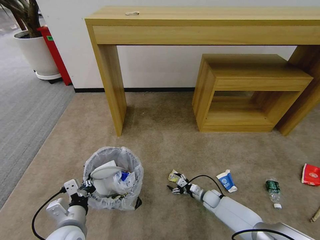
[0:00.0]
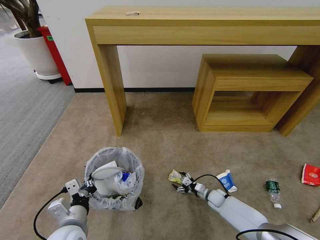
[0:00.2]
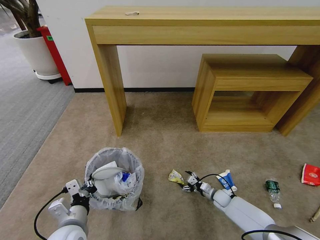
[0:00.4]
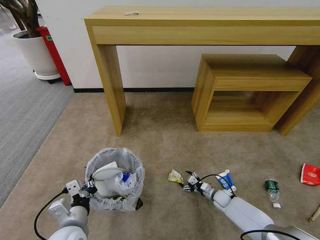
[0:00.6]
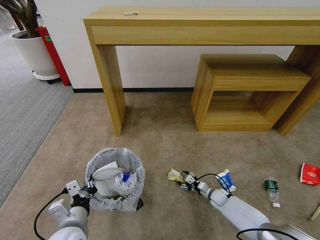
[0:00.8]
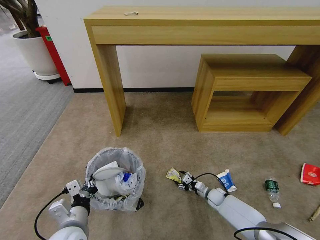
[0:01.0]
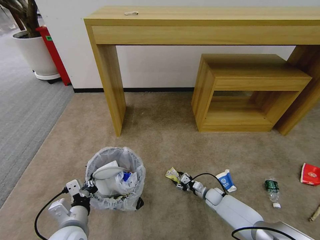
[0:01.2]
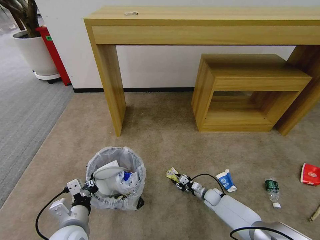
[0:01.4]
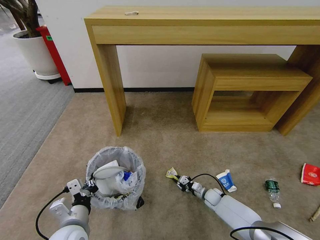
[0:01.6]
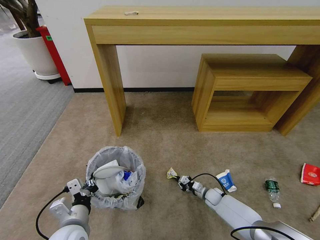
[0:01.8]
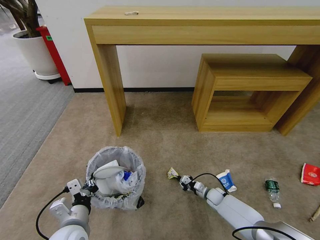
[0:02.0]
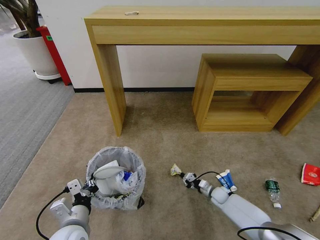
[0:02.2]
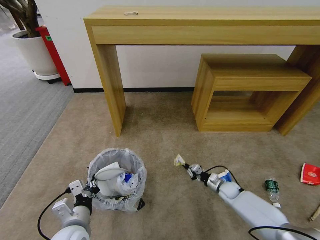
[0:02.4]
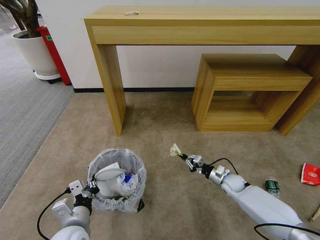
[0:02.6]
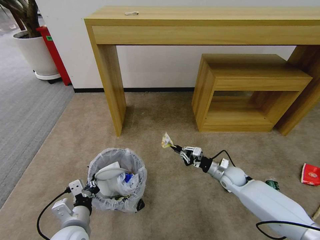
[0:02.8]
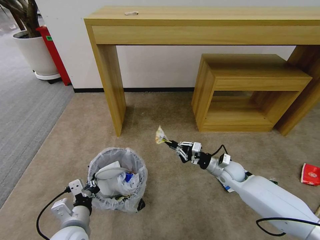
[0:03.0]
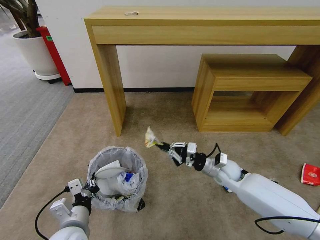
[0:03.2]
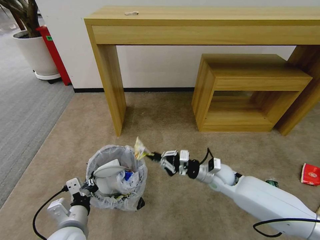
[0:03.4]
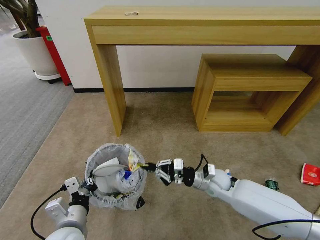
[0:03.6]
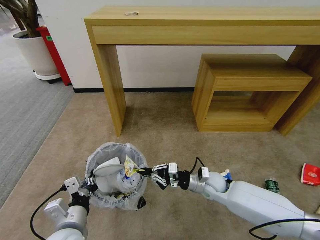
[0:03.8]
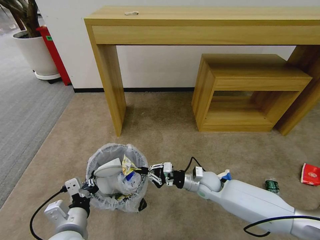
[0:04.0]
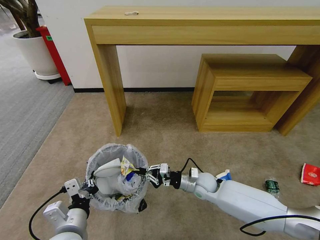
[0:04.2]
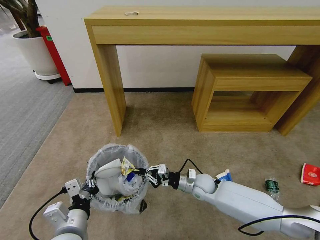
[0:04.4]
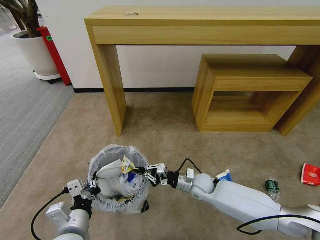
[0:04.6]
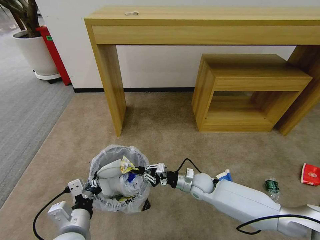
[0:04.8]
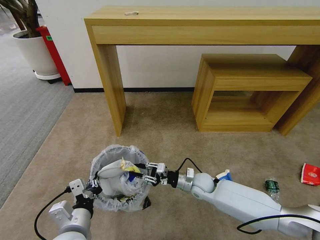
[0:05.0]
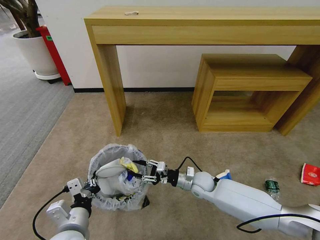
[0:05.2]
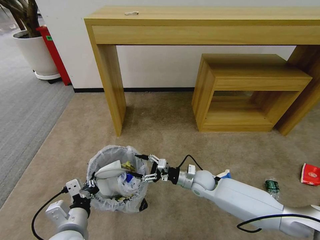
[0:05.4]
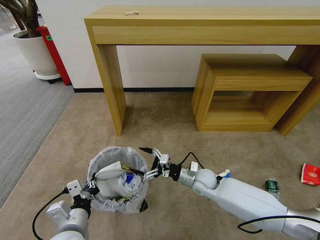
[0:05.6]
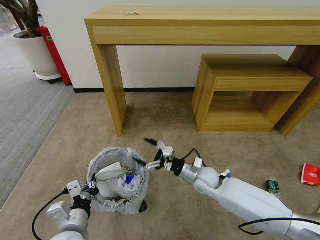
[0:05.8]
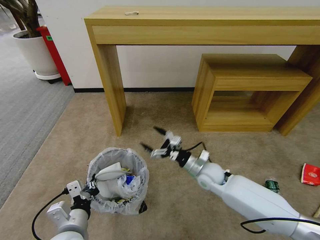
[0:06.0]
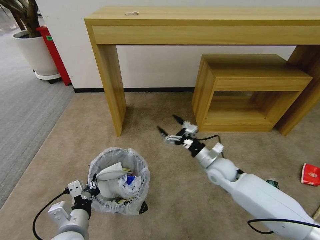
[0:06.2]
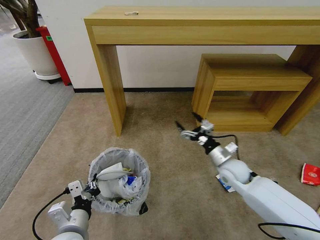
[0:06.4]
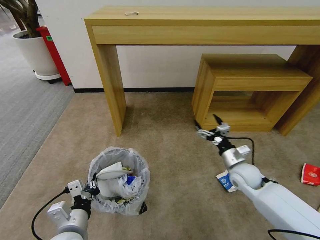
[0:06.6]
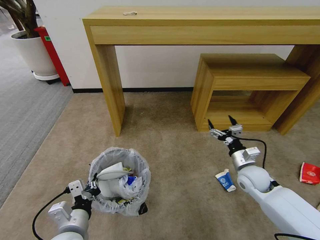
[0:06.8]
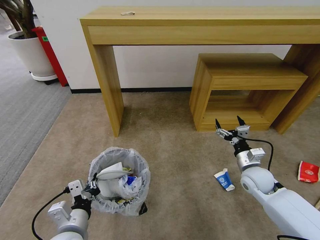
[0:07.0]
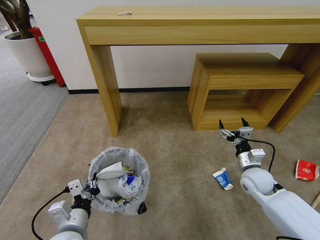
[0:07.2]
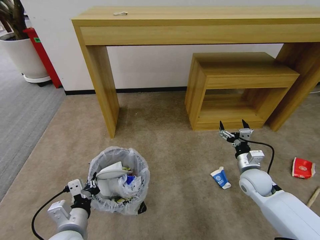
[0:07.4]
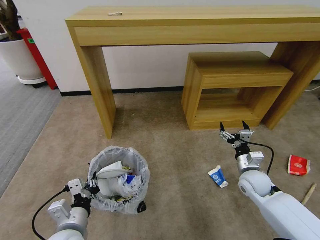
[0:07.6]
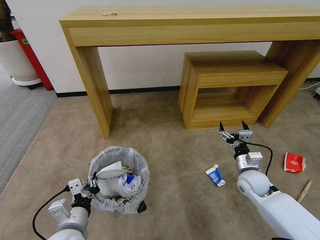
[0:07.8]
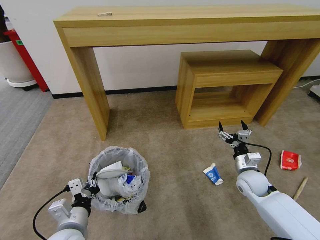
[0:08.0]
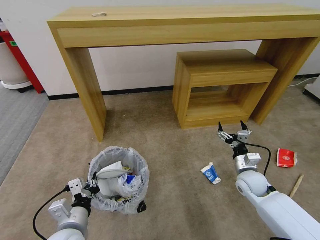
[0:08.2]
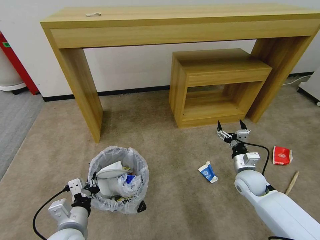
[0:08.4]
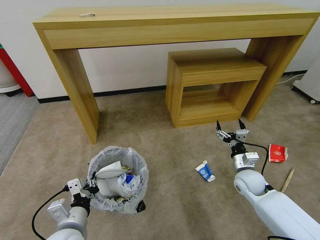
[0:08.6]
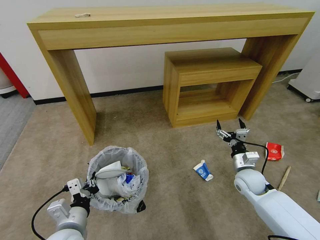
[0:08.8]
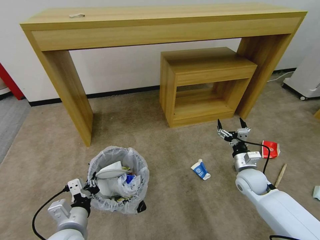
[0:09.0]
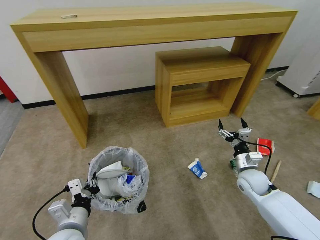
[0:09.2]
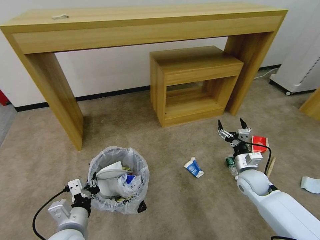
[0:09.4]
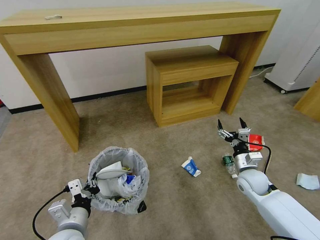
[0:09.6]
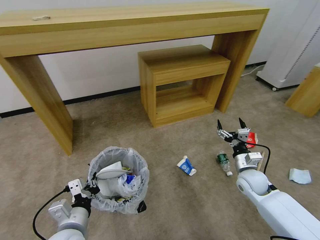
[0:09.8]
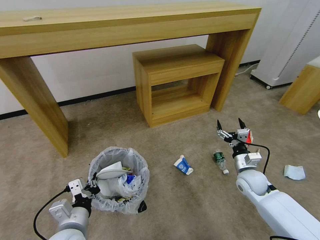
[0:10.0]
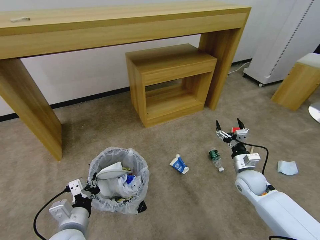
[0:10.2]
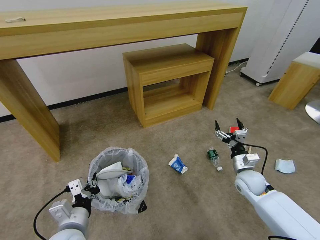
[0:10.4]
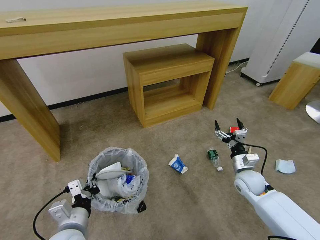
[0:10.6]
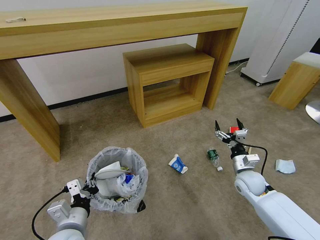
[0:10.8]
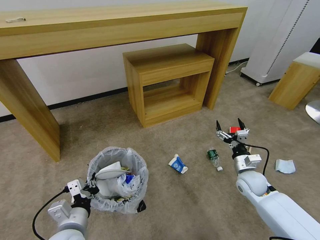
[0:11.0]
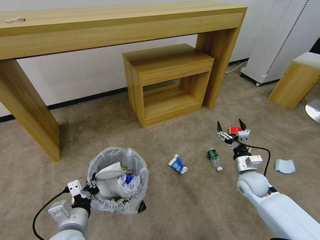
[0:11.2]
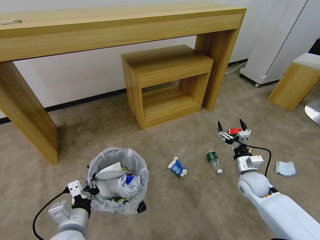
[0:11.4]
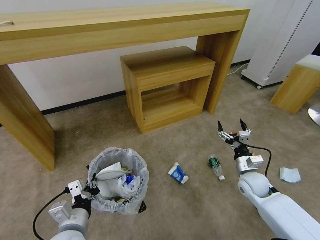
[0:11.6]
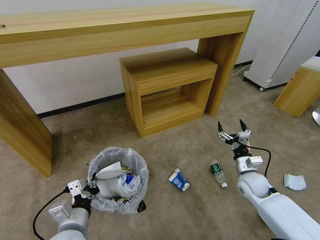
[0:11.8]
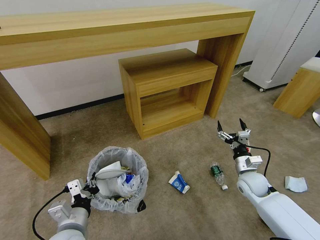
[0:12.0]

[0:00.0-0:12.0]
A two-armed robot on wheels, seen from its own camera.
Task of the whole recording: Pick up the trash bin and place the garbage on the floor into it.
0:00.0 to 0:01.6: The right gripper closes.
0:01.6 to 0:03.0: The right gripper goes roughly 20 cm upward.
0:03.0 to 0:04.4: The right gripper travels to the left by some 10 cm.
0:04.4 to 0:06.0: The right gripper is displaced upward by approximately 5 cm, and opens its fingers.
0:06.0 to 0:07.6: The right gripper shifts approximately 15 cm to the right.

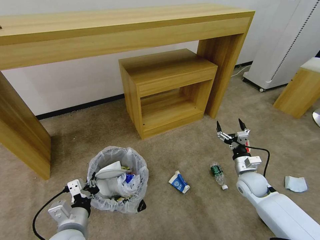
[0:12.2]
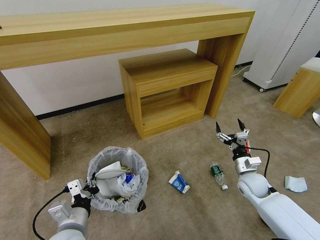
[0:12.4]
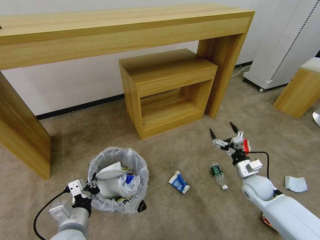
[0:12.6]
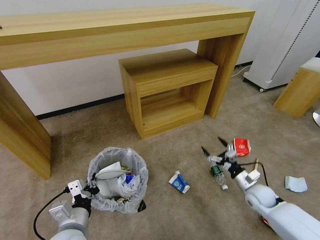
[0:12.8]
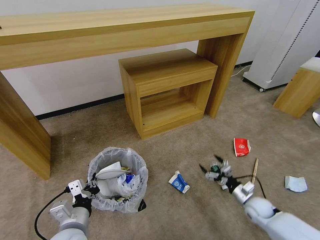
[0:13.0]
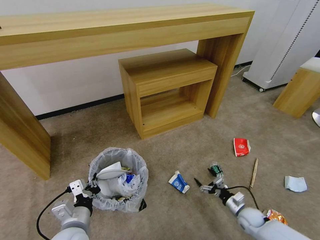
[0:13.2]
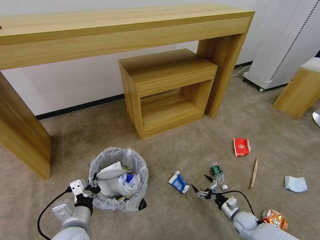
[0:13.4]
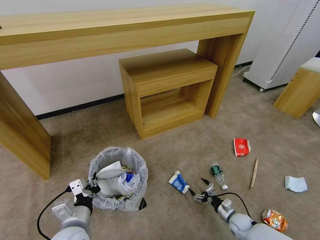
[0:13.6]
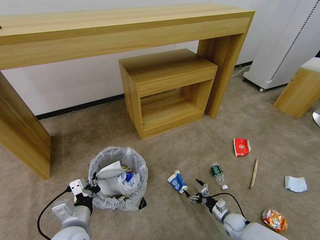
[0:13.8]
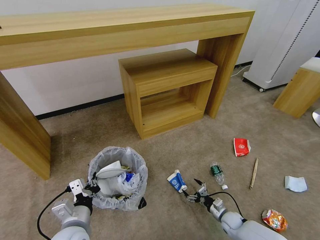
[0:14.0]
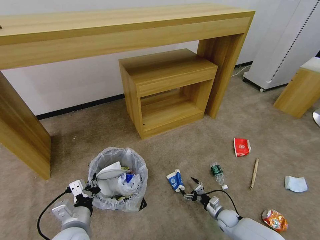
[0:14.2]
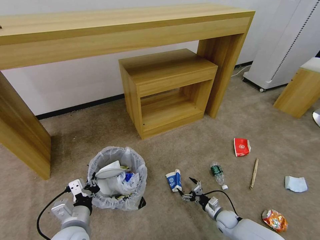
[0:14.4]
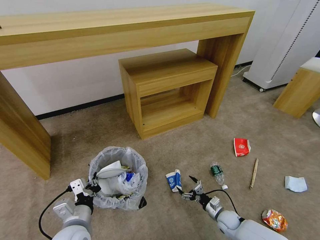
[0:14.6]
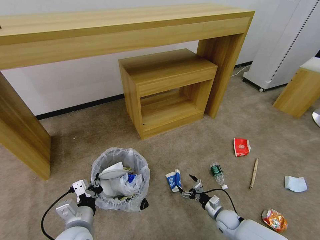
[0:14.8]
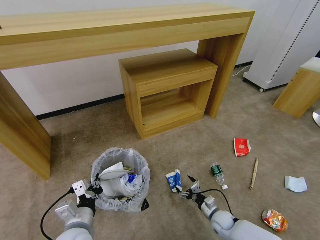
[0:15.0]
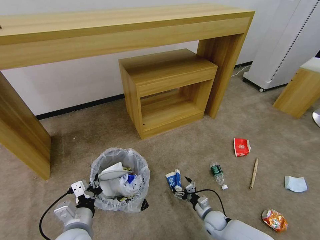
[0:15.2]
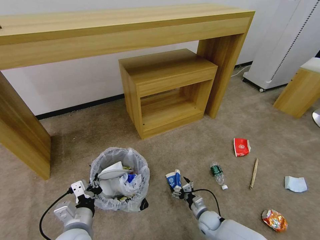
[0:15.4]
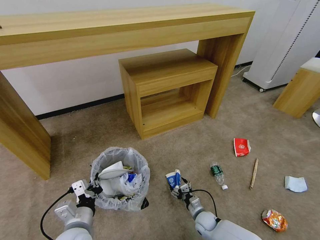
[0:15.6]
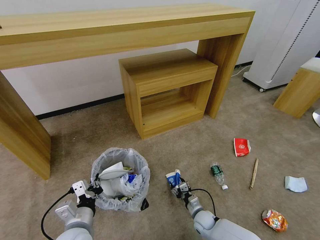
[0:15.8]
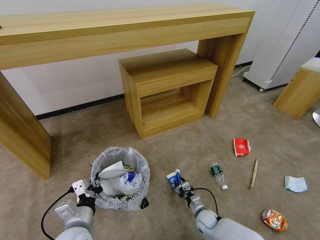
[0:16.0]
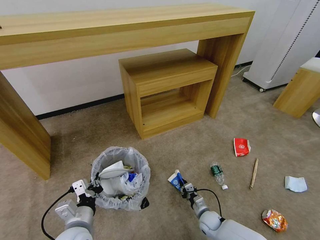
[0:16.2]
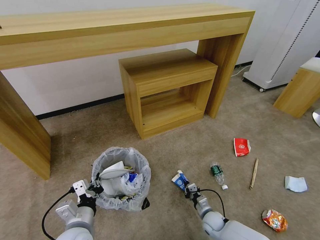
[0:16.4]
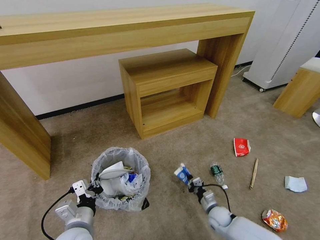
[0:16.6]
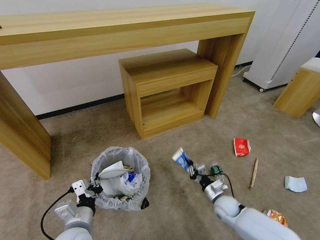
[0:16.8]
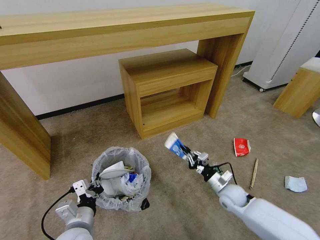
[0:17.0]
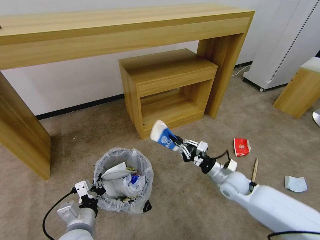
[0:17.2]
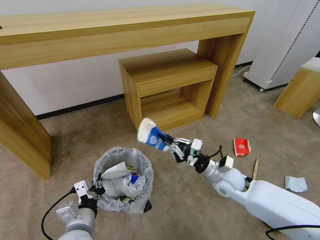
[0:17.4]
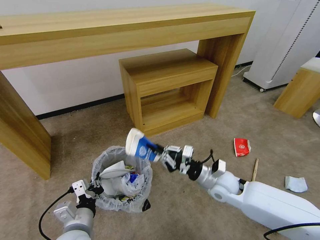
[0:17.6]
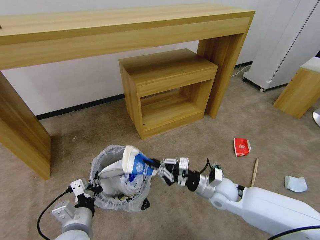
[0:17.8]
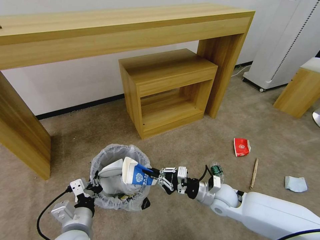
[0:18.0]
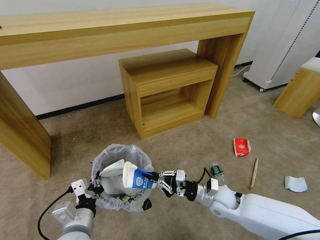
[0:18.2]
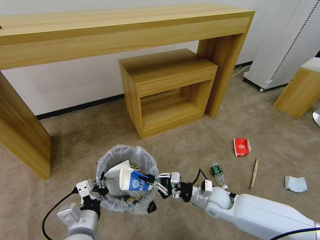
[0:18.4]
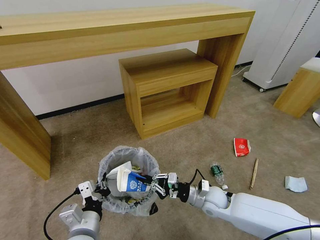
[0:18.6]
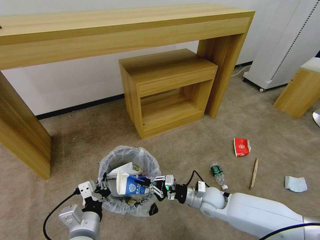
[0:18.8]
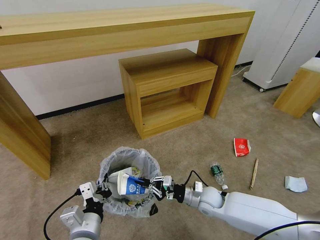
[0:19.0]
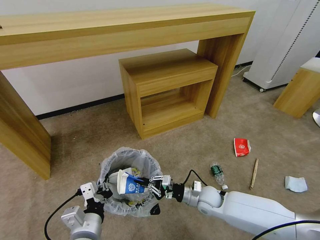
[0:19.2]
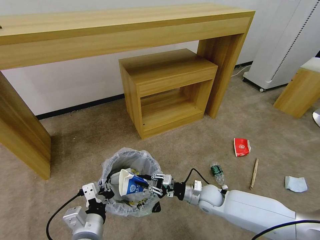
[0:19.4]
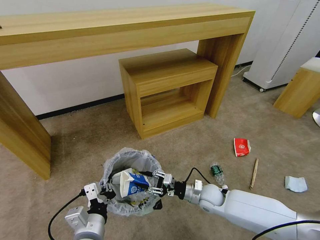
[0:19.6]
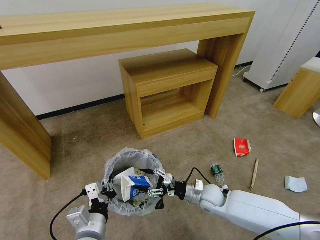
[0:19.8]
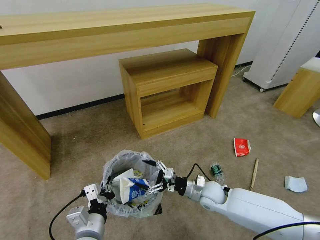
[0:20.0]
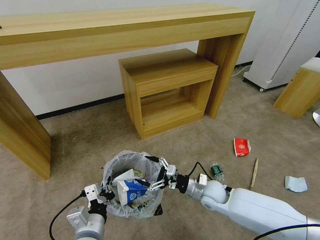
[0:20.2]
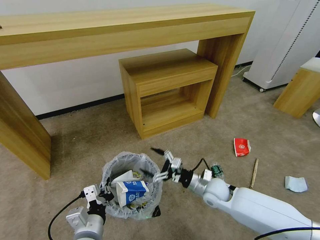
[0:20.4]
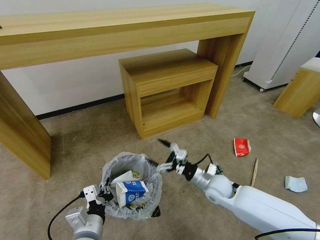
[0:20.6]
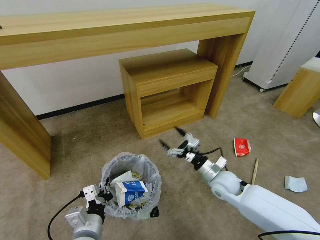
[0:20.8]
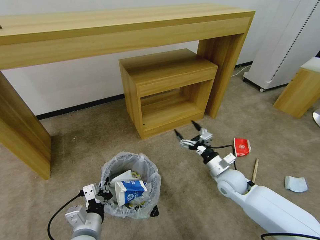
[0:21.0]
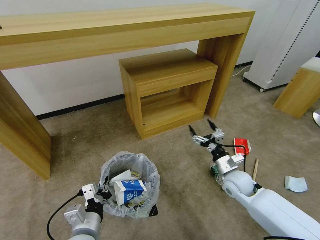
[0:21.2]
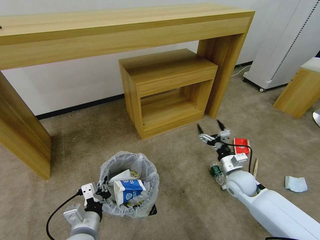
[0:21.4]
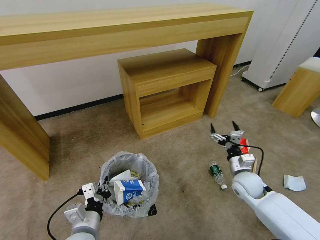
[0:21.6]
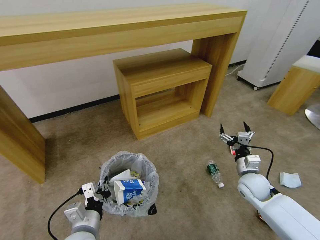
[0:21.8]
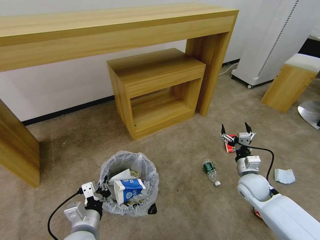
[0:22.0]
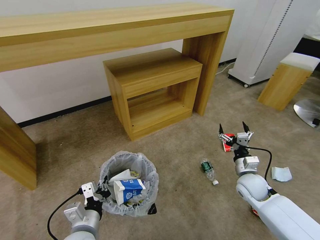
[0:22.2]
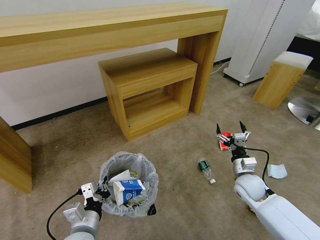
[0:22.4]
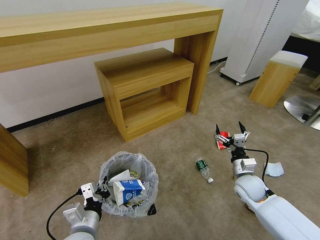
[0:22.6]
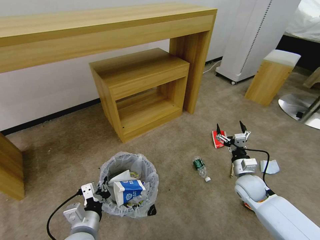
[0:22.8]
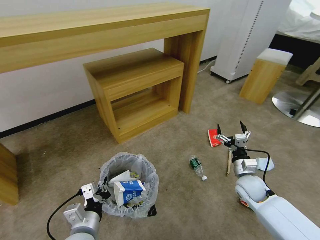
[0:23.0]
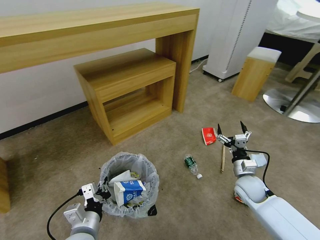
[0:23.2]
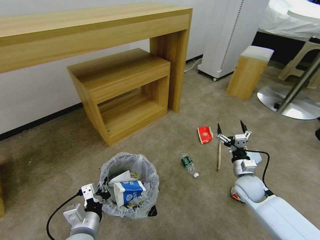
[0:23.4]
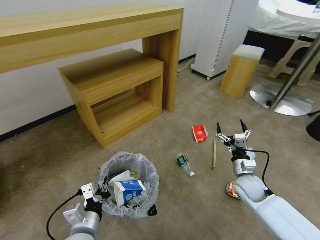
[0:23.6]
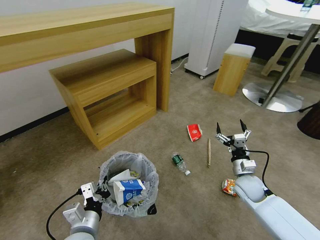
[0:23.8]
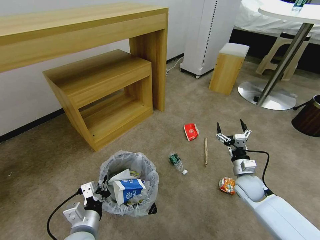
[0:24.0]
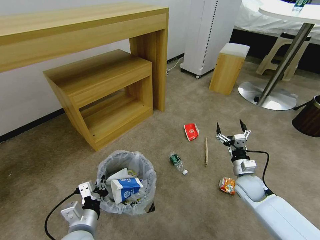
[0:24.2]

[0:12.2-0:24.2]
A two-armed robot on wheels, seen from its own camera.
Task of the whole recording: Pick up the trash bin and place the garbage on the floor into it.
0:12.2 to 0:13.8: The right gripper goes some 20 cm downward.
0:13.8 to 0:15.2: The right gripper is displaced to the left by roughly 10 cm.
0:15.2 to 0:16.6: The right gripper closes.
0:16.6 to 0:18.2: The right gripper shifts approximately 15 cm upward.
0:18.2 to 0:19.8: The right gripper opens up.
0:19.8 to 0:21.2: The right gripper heads to the right and upward, covering approximately 10 cm.
